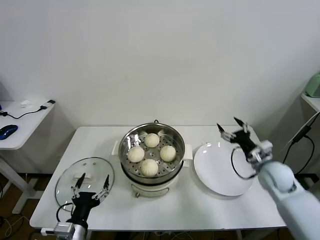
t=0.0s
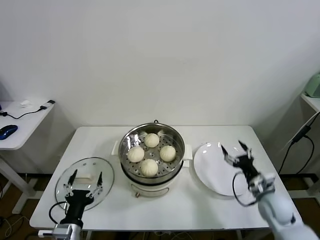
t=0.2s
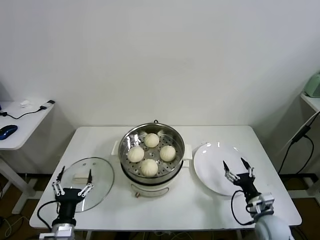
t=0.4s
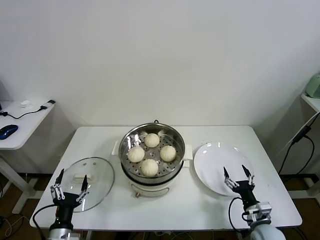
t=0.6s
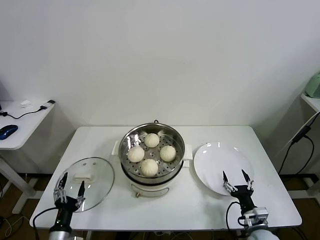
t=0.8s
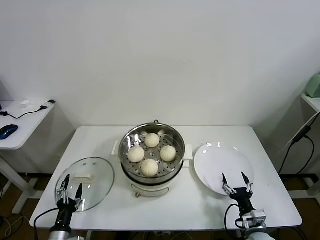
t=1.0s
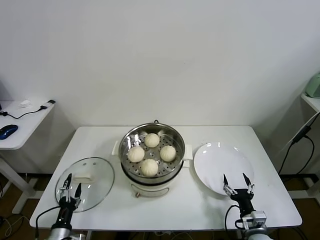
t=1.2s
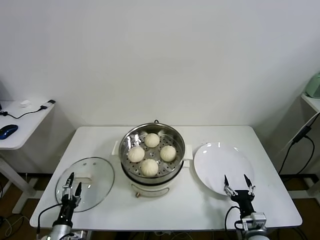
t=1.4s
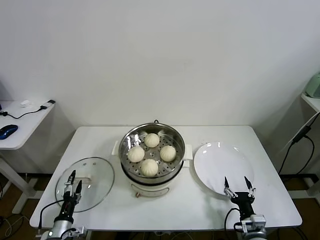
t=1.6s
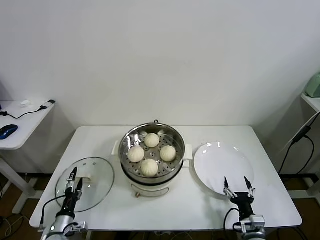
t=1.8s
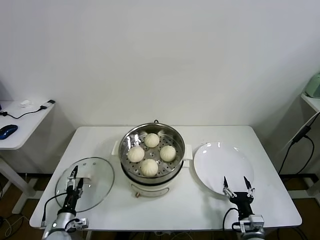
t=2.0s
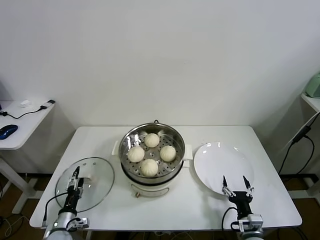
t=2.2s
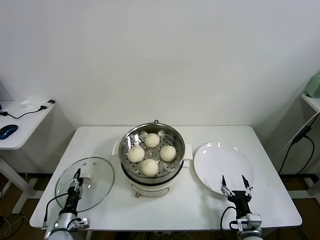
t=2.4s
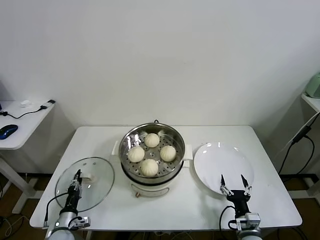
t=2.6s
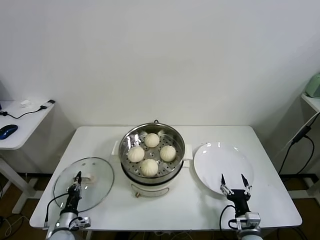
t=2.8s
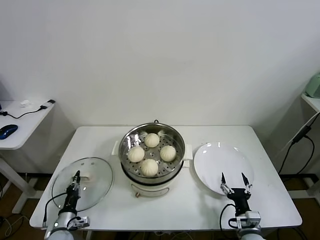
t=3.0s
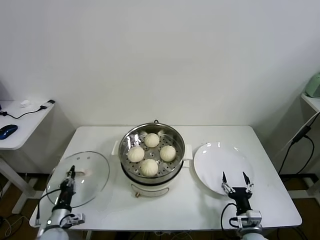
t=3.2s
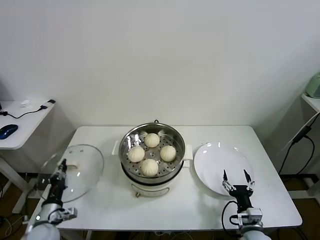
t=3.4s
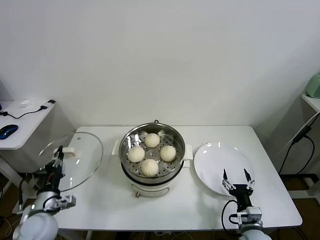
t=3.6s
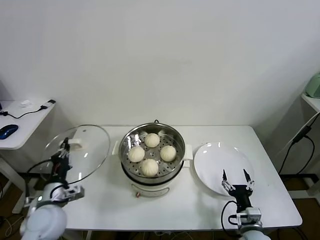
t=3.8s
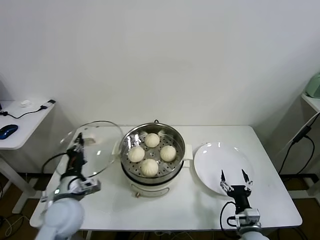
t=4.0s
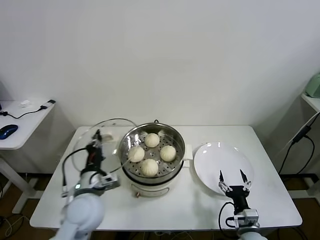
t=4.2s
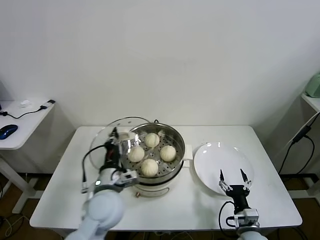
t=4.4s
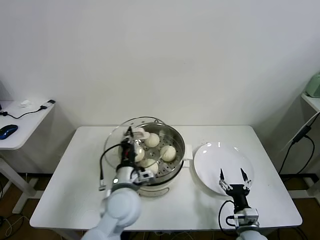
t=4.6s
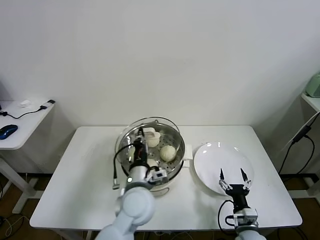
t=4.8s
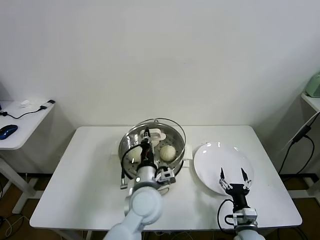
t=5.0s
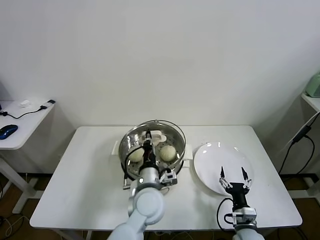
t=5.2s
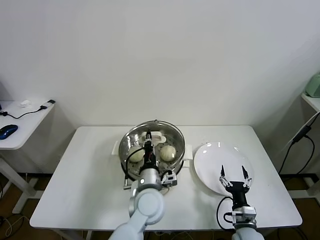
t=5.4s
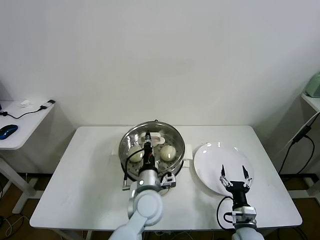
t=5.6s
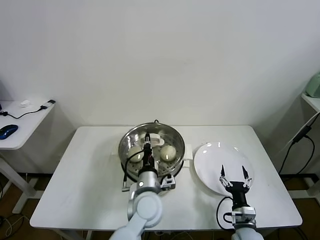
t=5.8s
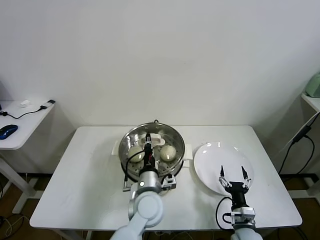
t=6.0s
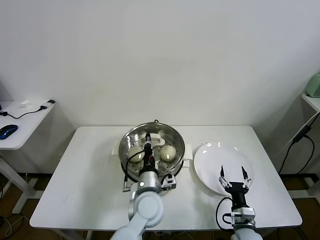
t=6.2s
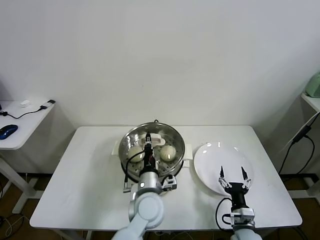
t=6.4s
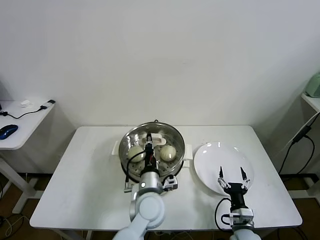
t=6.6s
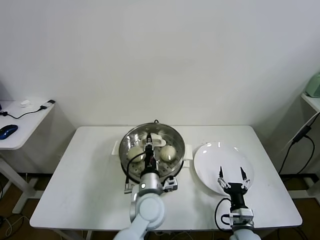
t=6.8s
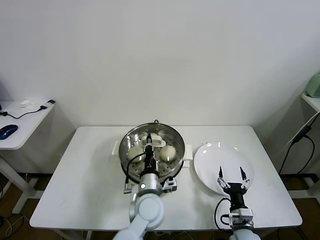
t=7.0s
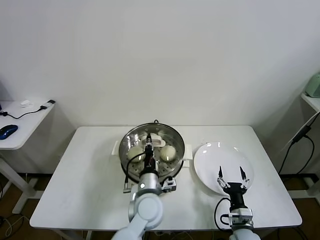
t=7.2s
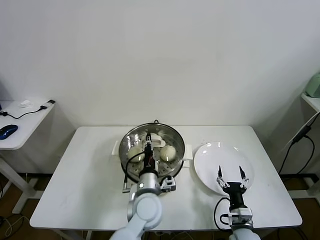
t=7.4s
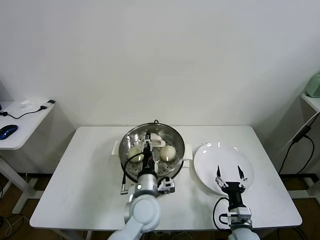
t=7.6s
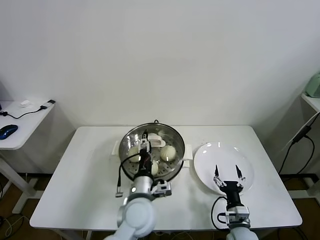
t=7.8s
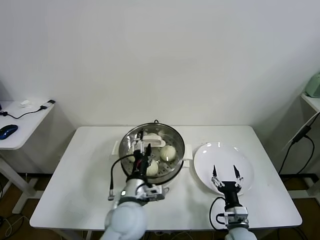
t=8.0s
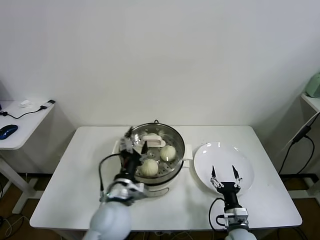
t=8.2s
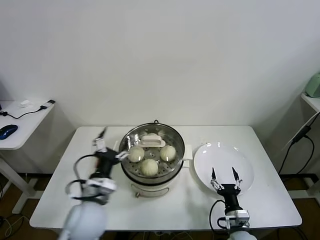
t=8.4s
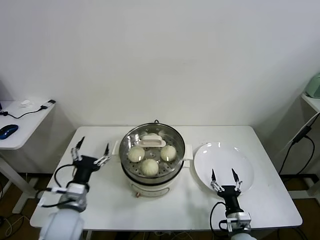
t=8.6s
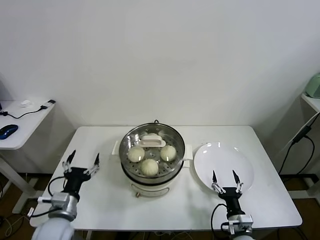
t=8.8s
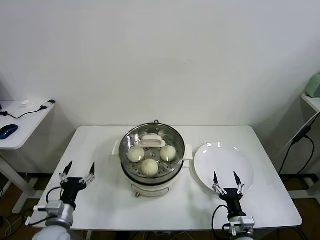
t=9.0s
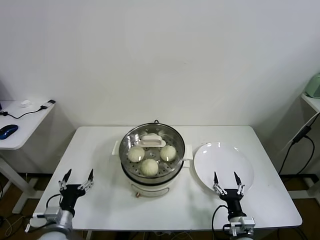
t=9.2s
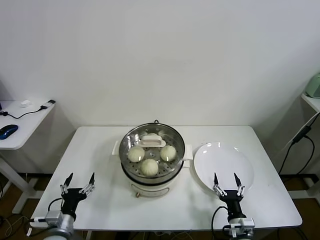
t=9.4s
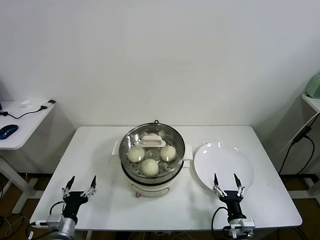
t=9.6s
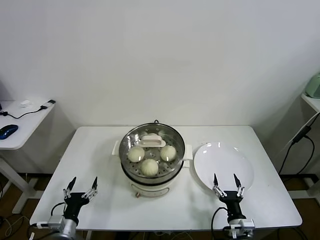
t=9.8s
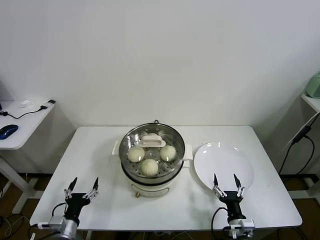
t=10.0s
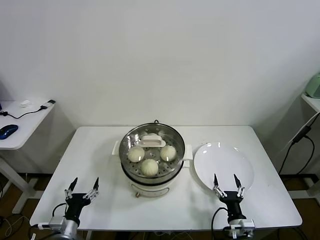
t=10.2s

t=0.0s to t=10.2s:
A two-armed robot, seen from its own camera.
Task of the whole recording: take steamed baozi put them in steamer.
Step, t=0.0s to t=2.8s: Grasp the pot lid with left gripper.
Step, t=3.2s to t=7.4s: Place the pot lid on the steamer with left gripper.
t=0.0s to t=1.4s: The left gripper is displaced downward and to the left by some 15 cm. Meanwhile the right gripper travels backward and downward by approximately 25 cm.
t=1.4s to t=3.0s: The left gripper shifts some 5 cm forward, and closes up.
t=3.0s to t=4.4s: The left gripper travels upward and to the right by approximately 30 cm.
t=4.4s to t=5.8s: The left gripper is displaced to the right and downward by roughly 15 cm.
t=5.8s to t=7.2s: Both grippers stay put.
t=7.2s to t=8.8s: The left gripper travels to the left by approximately 25 cm, and opens its fingers.
t=8.8s to t=10.2s: The left gripper moves downward, approximately 10 cm.

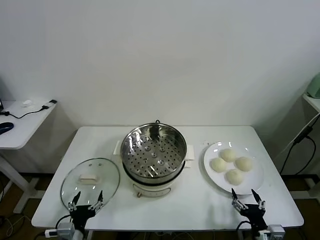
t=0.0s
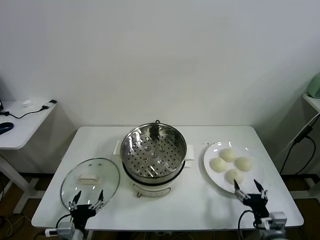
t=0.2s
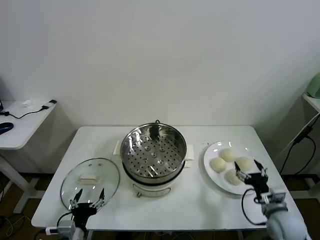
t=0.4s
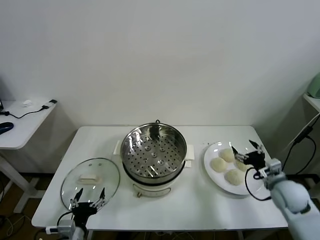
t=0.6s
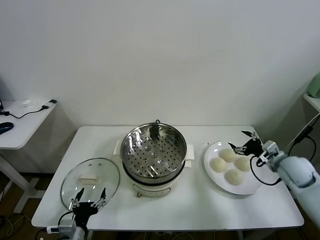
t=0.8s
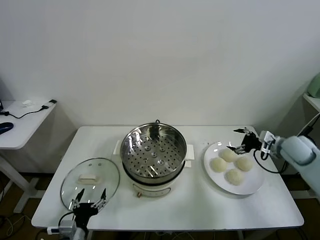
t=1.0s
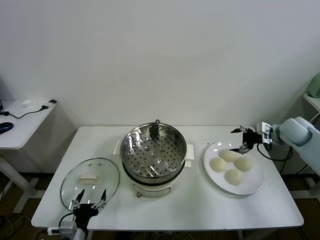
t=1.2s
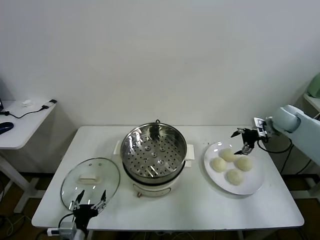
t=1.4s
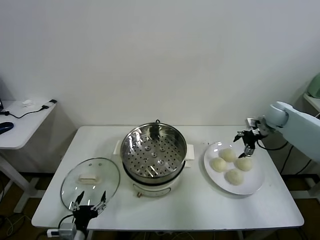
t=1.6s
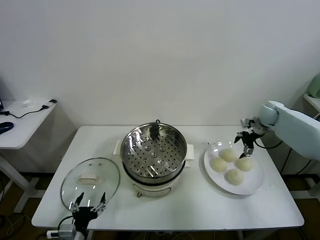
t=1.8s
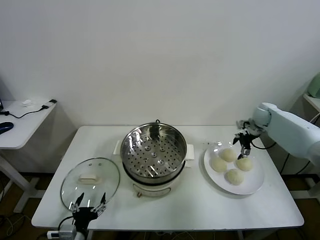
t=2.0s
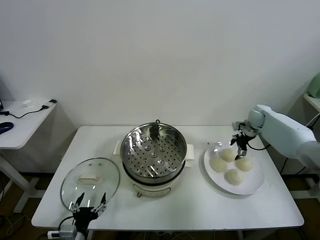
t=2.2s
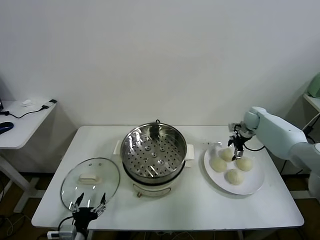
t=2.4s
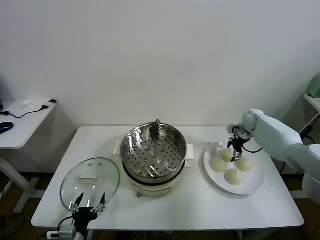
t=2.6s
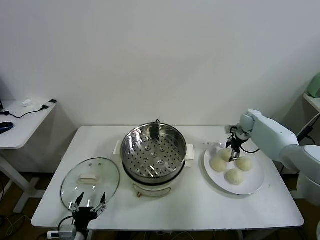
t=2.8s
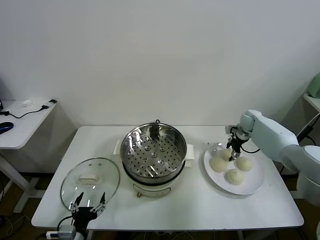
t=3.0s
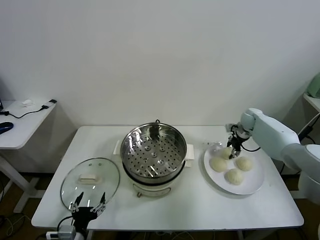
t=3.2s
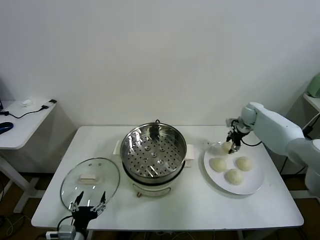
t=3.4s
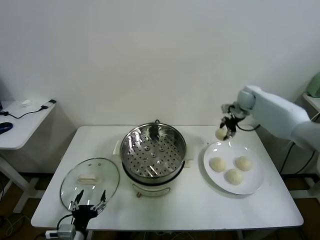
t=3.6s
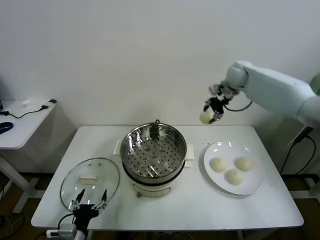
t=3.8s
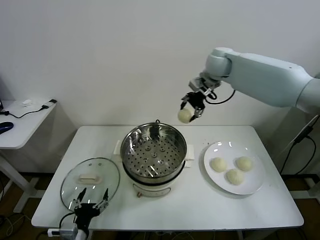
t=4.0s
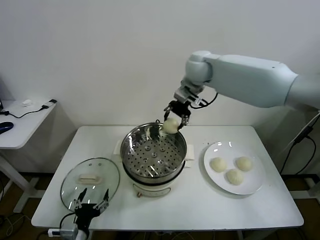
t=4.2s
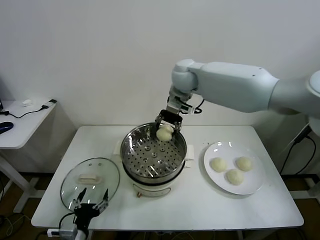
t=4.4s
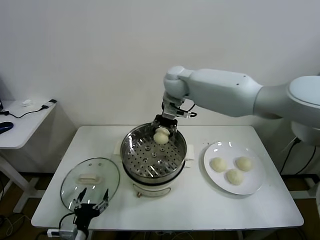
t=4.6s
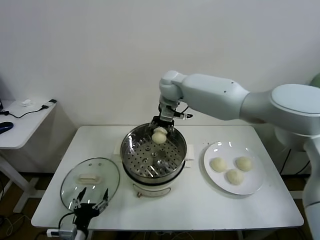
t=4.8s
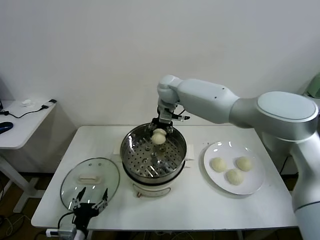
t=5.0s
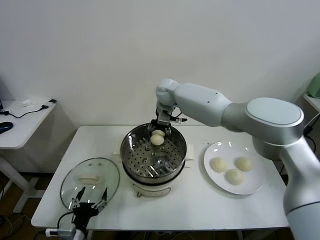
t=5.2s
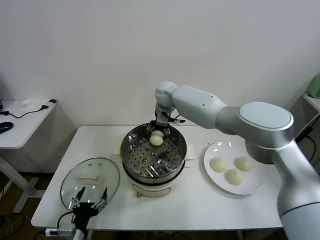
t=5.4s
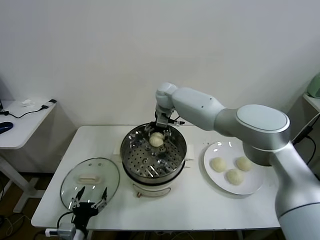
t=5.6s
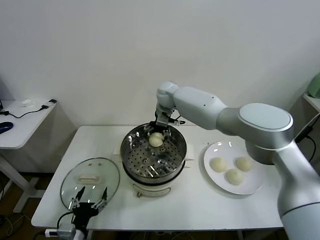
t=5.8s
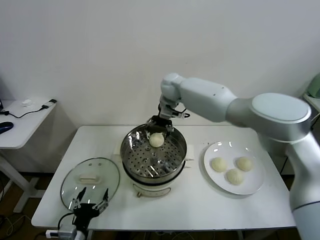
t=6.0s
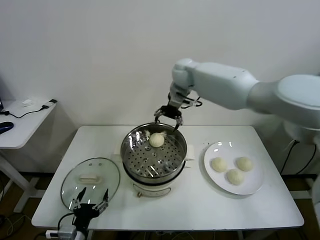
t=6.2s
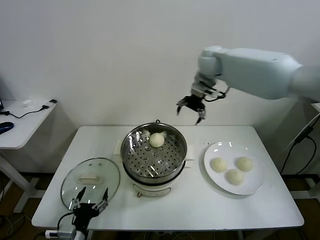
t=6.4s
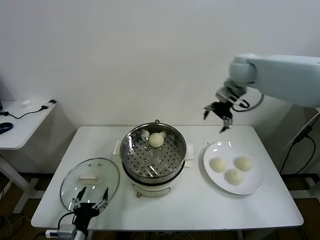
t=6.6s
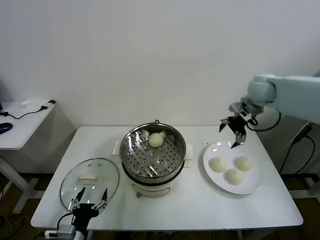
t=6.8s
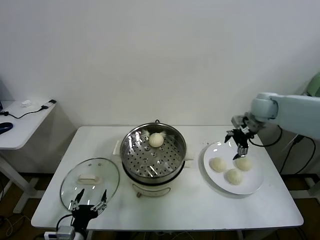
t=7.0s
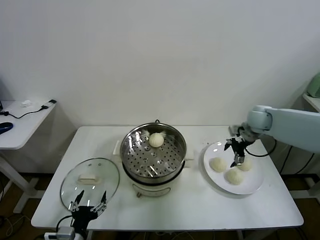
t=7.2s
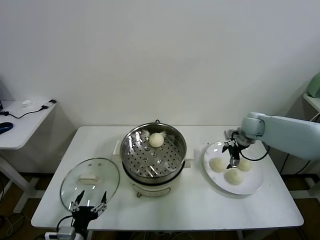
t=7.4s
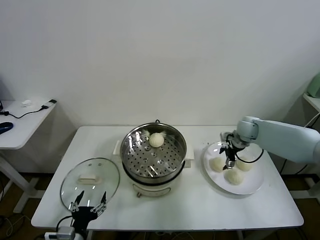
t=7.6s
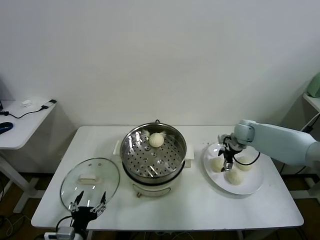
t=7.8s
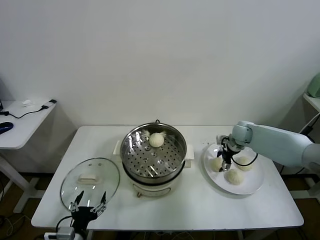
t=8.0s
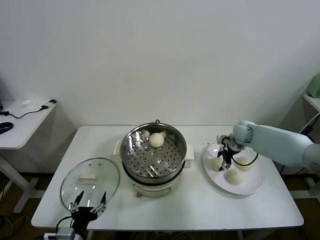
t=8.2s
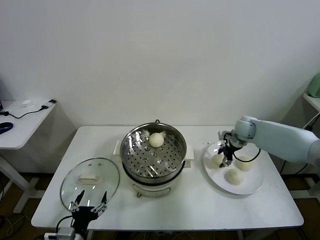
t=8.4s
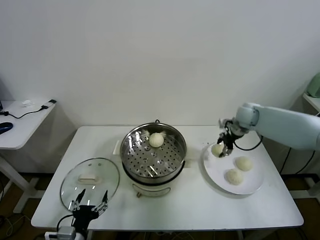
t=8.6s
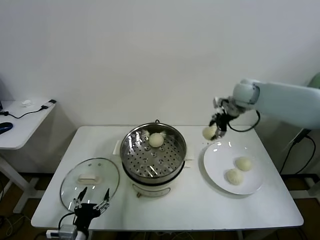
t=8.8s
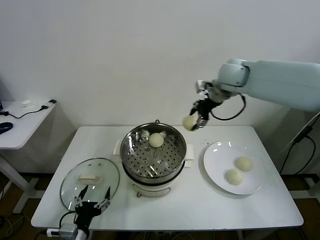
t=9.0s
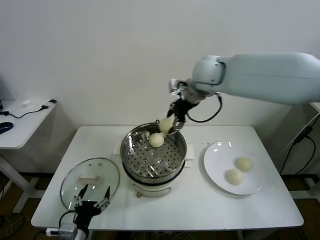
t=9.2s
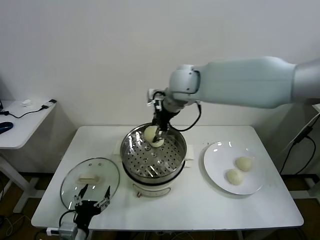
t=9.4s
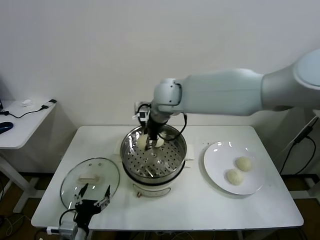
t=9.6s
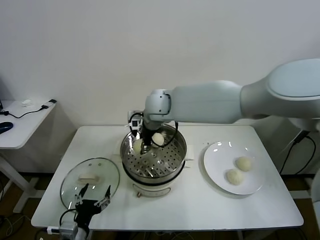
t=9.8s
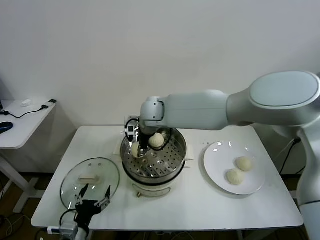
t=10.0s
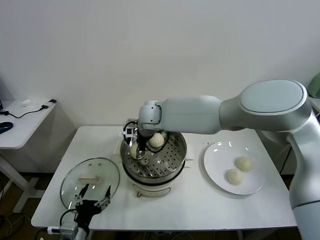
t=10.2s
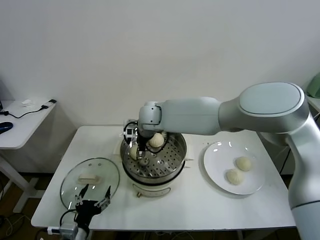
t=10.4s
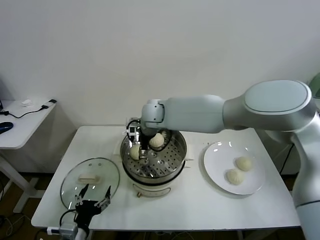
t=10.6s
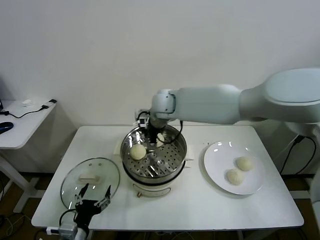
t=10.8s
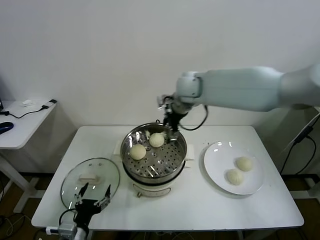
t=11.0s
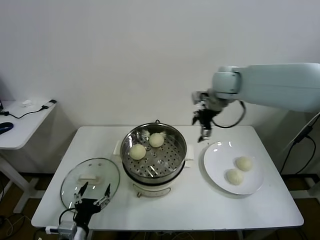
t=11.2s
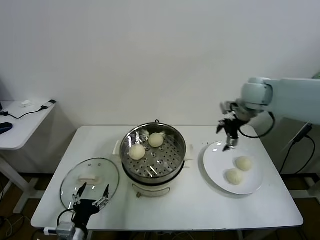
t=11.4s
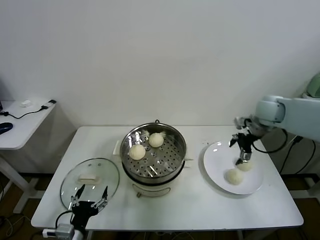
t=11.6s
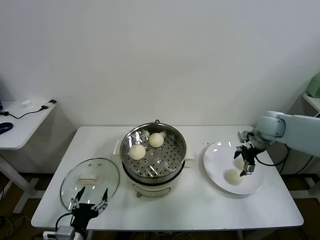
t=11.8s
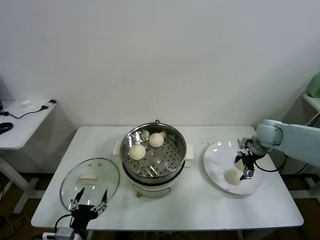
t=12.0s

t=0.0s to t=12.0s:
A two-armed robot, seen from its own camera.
Task of the whole recording: take steamed baozi put them in steamer.
Step, t=0.0s to t=3.0s: Grasp the baozi in the plate with right gripper.
Step, t=3.2s to t=5.6s: Place the baozi on the steamer with right gripper.
Step, t=5.8s to t=8.0s: Grasp the baozi in the plate with right gripper.
Step, t=8.2s to t=10.4s: Place the baozi on the steamer with right gripper.
t=1.6s to t=3.0s: The right gripper goes about 10 cm downward, and closes its fingers.
t=3.0s to t=4.4s: The right gripper moves to the left and upward, roughly 40 cm.
t=4.4s to t=6.0s: The right gripper heads forward, covering approximately 5 cm, goes downward and returns, approximately 10 cm each way, and opens.
t=6.0s to t=7.6s: The right gripper travels to the right and downward by about 35 cm.
t=7.6s to t=9.0s: The right gripper shifts about 30 cm upward and to the left, and closes up.
t=9.0s to t=10.4s: The right gripper is displaced to the left and downward by roughly 25 cm, and opens its fingers.
t=10.4s to t=12.0s: The right gripper heads to the right, covering some 40 cm.
